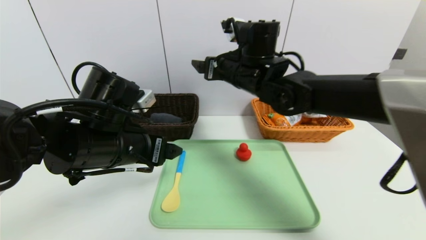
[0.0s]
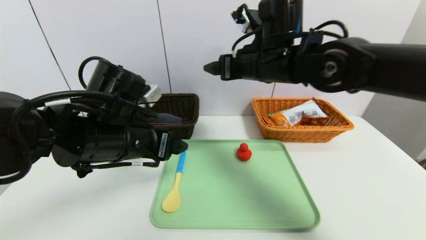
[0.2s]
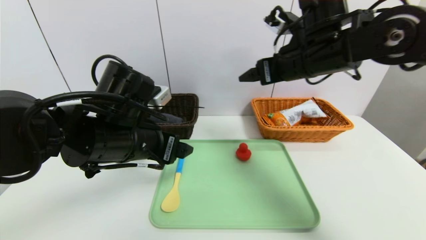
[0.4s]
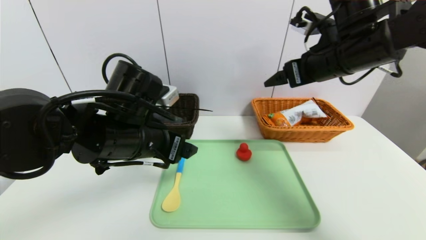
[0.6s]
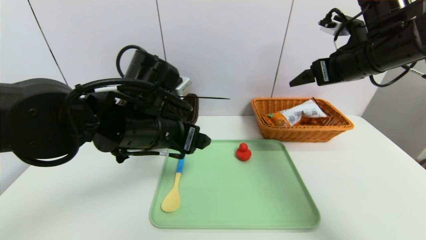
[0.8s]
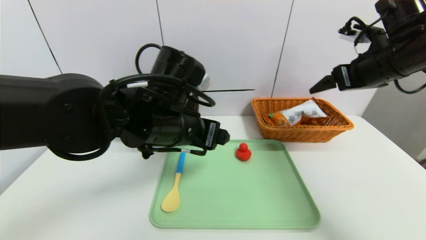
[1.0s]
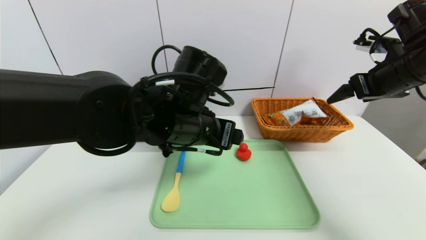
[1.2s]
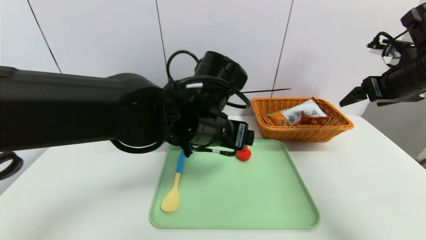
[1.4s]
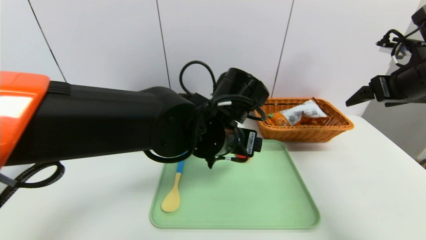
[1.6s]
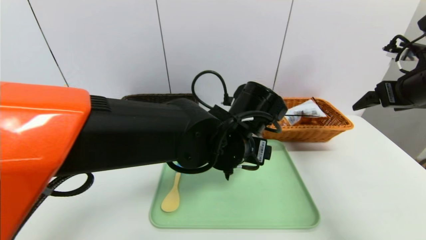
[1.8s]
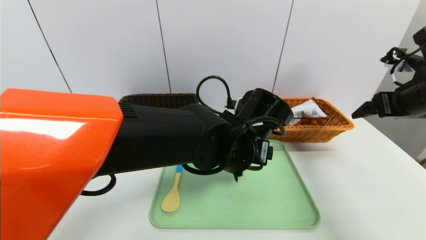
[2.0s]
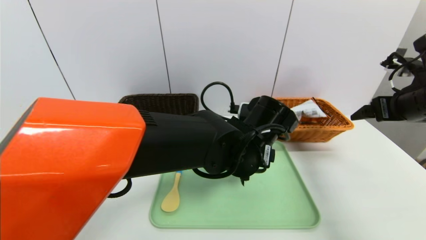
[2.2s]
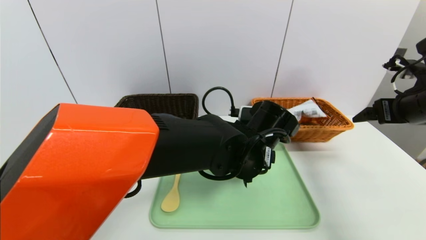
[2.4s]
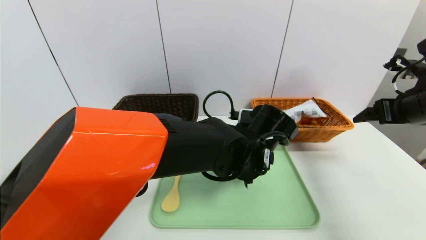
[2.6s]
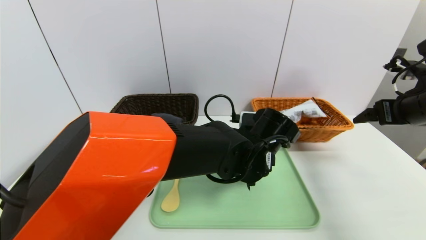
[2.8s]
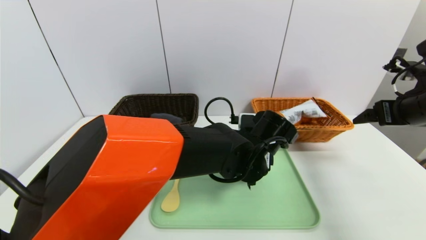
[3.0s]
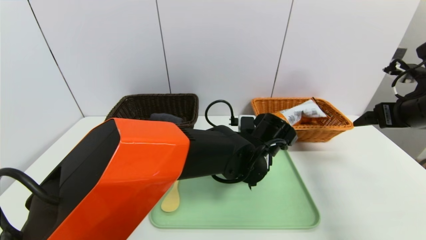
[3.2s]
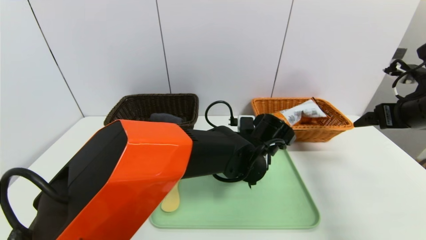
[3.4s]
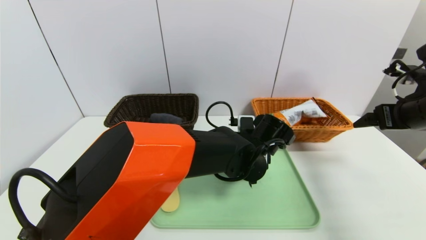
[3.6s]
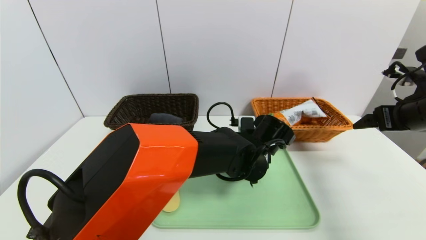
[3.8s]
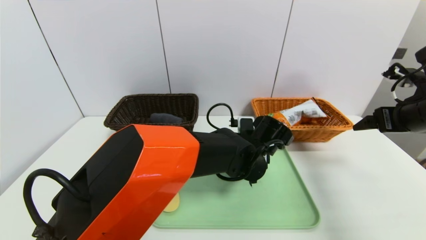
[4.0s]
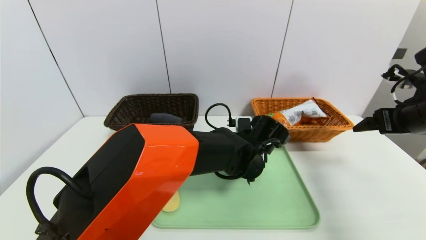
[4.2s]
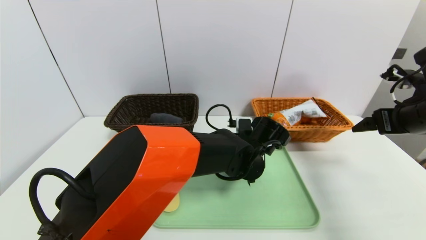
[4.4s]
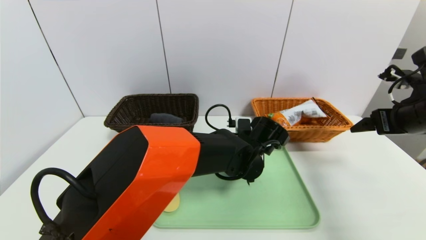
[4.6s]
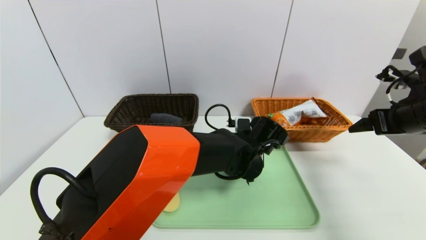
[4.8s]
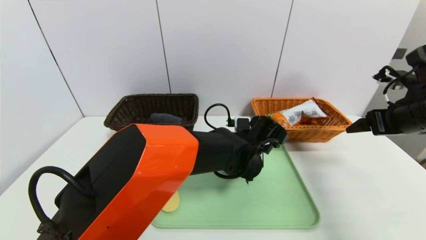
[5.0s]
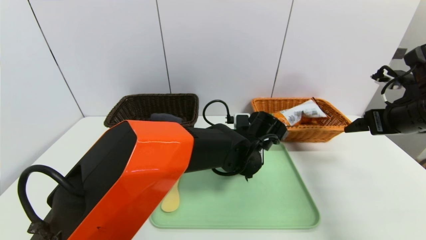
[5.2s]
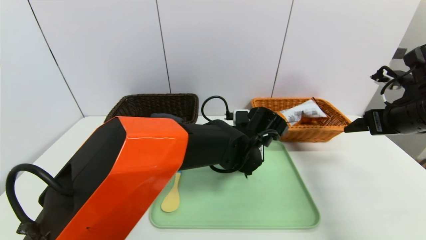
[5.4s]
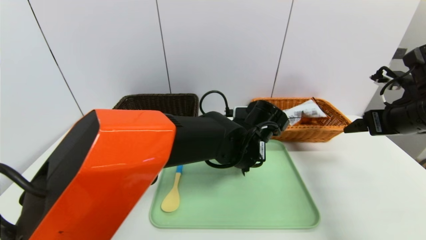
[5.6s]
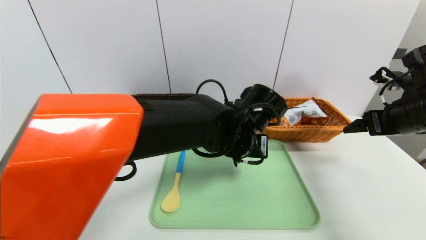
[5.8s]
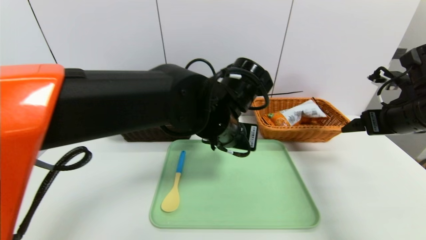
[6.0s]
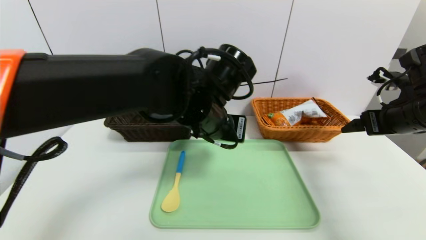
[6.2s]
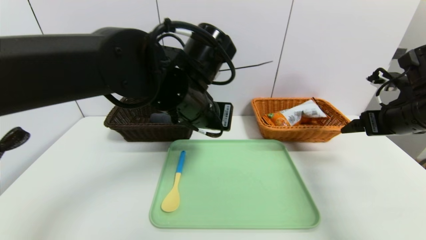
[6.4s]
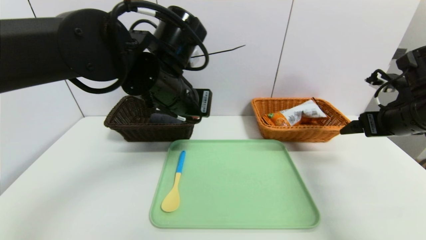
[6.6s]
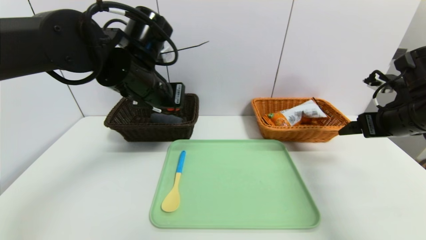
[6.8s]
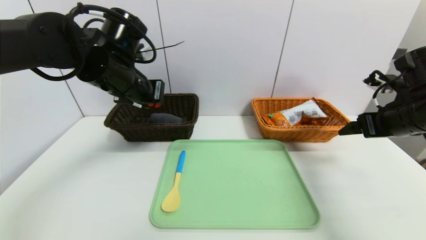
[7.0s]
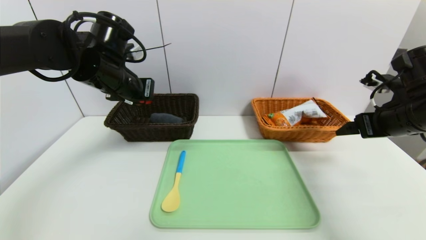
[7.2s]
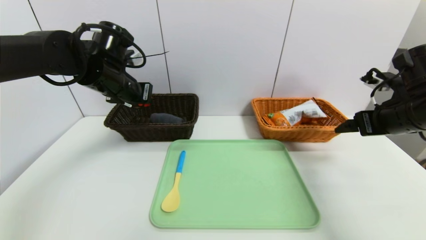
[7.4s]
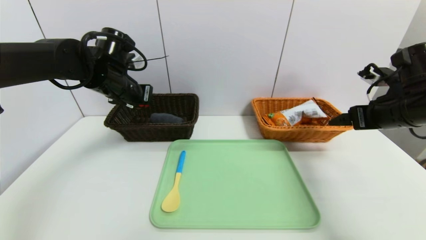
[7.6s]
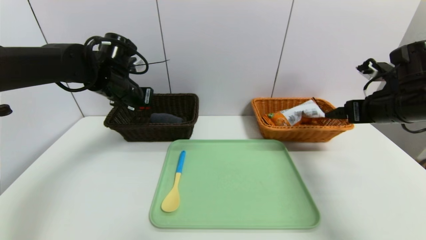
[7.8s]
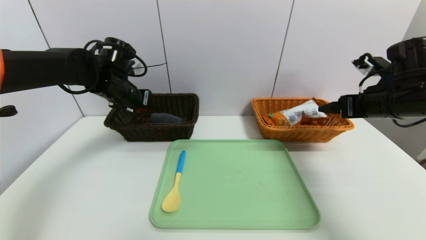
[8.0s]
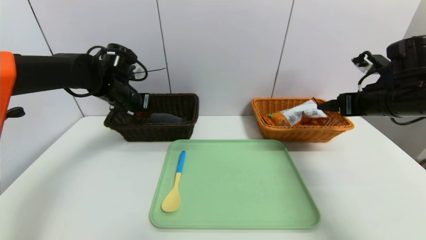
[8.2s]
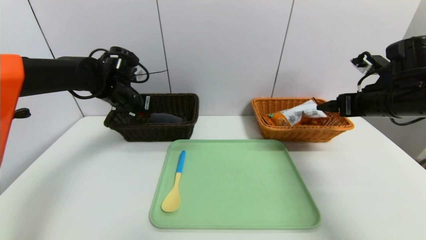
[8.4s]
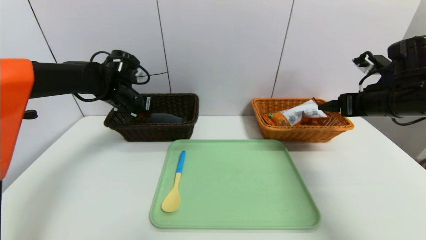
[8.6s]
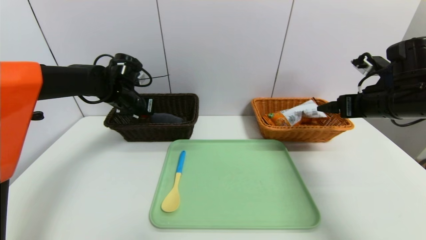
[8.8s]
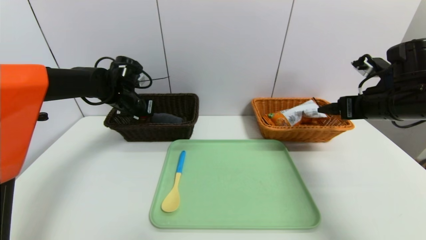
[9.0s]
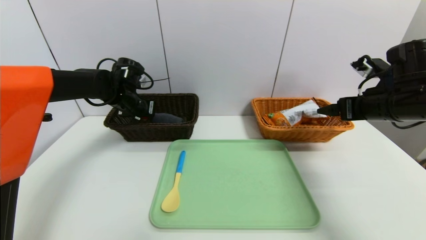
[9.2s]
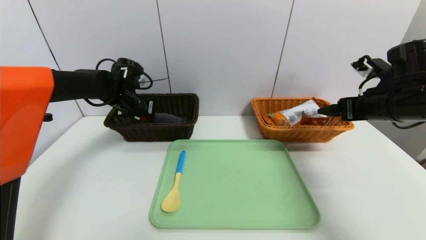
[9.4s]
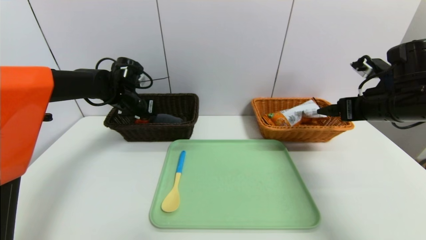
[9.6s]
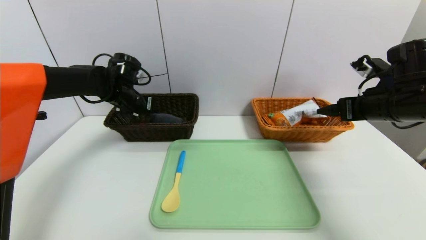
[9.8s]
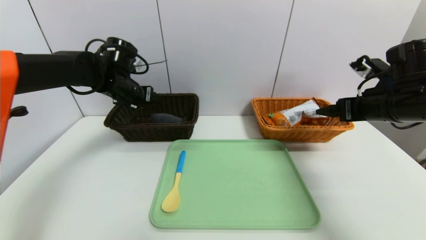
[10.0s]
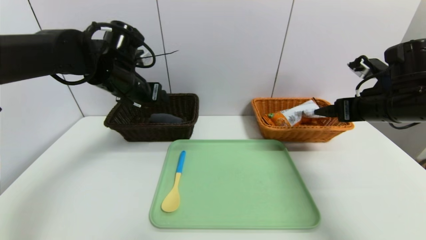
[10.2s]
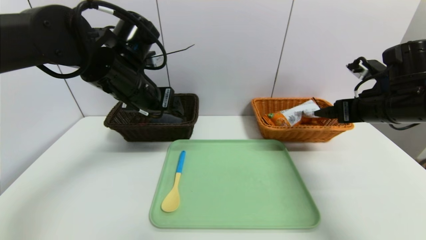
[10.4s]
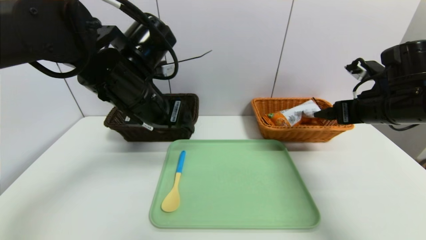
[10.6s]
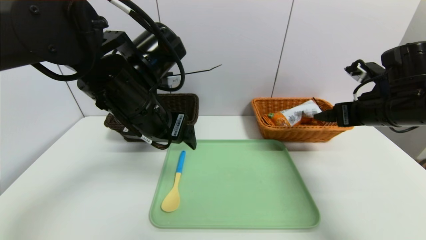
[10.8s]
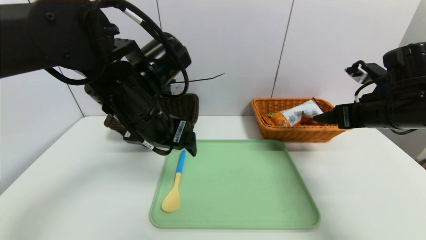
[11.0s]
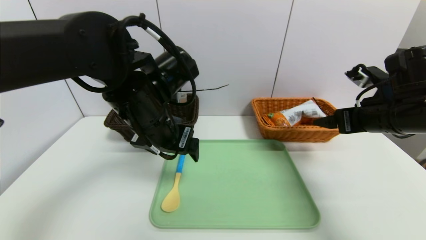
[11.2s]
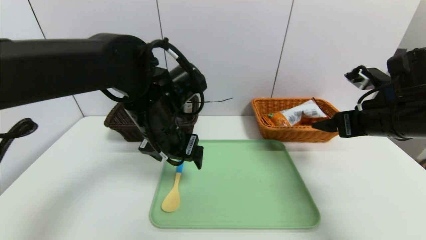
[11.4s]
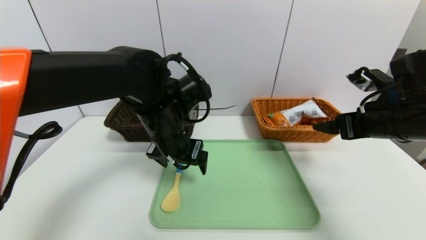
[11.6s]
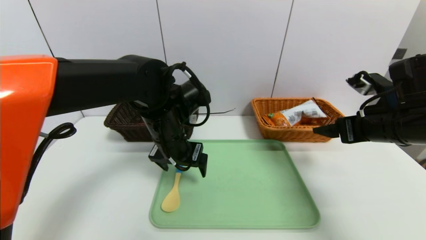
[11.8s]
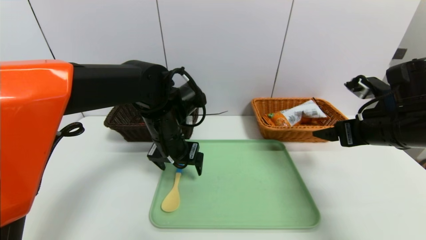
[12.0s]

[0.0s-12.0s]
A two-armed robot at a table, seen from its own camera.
Task of the whole recording: place the food in the right basket with the right gripper, and place the non food items in the left basket with the left gripper.
Step, 0.0s to 9.8s: Grasp the red duck and put it in the left basket.
0.0s to 1.6s: The right gripper is displaced to the right by approximately 30 cm, while the left gripper goes approximately 15 cm to the right.
1.6s to 3.0s: The left gripper is displaced downward and to the right by some 10 cm. Meanwhile the right gripper changes place by approximately 5 cm.
3.0s to 4.4s: The grippers move only a little.
4.4s to 6.0s: The left gripper travels upward and to the left by roughly 15 cm, and closes up.
6.0s to 7.6s: The left gripper goes some 25 cm to the left and forward.
7.6s to 9.0s: The left gripper shifts roughly 10 cm downward and forward.
9.0s to 10.4s: The left gripper heads backward, upward and to the right, covering some 20 cm, and opens up.
10.4s to 12.0s: The left gripper moves downward, some 10 cm.

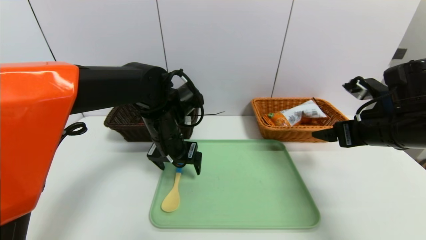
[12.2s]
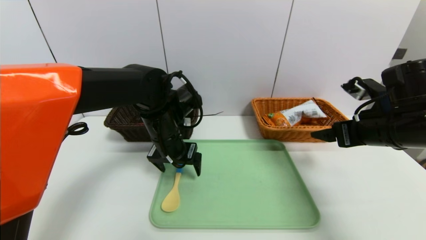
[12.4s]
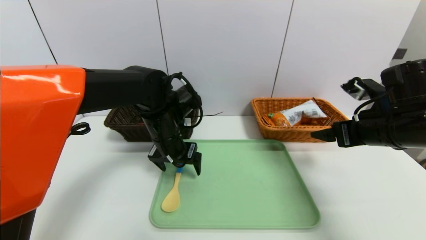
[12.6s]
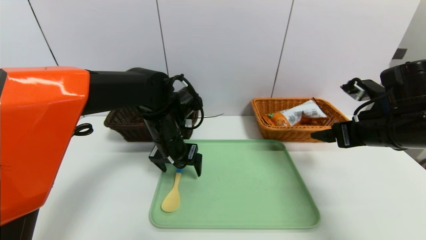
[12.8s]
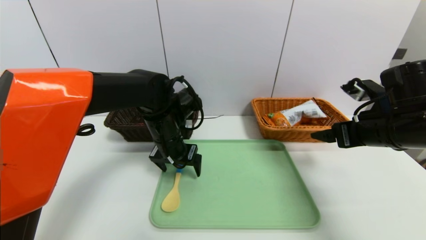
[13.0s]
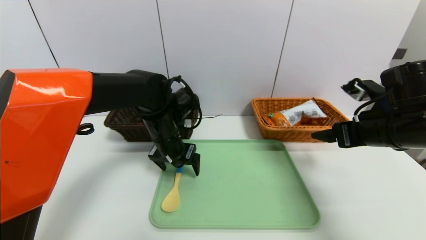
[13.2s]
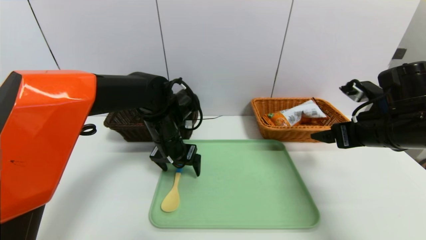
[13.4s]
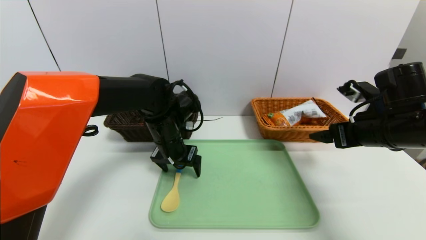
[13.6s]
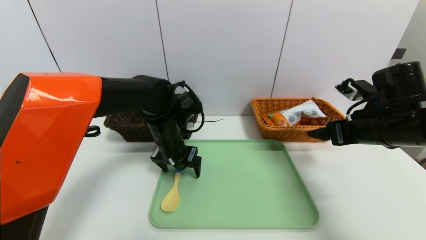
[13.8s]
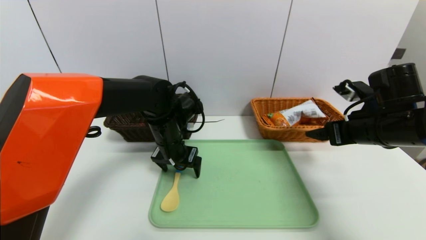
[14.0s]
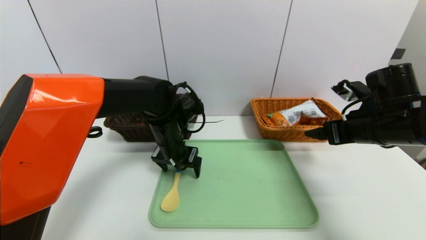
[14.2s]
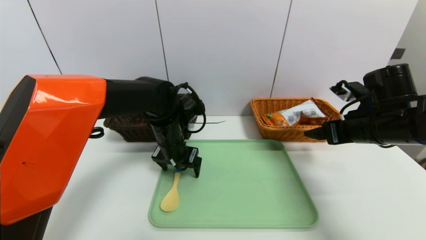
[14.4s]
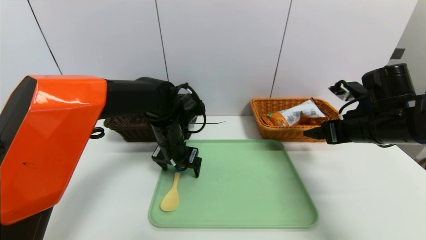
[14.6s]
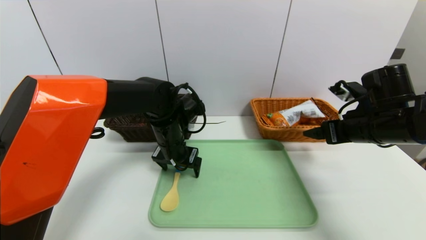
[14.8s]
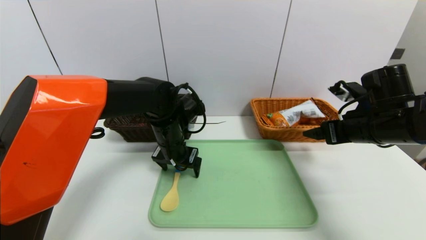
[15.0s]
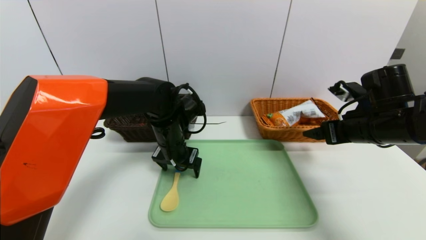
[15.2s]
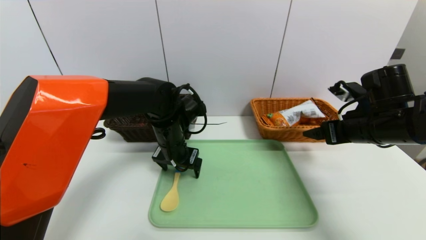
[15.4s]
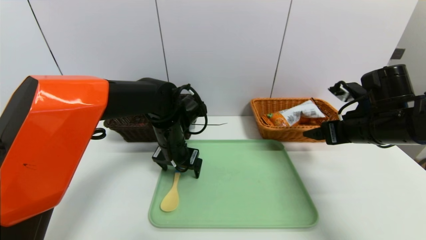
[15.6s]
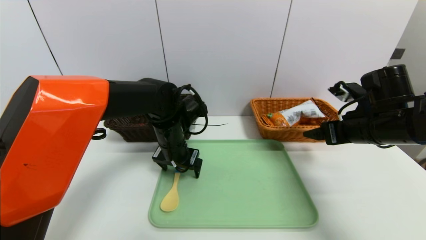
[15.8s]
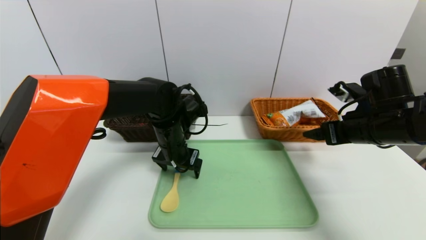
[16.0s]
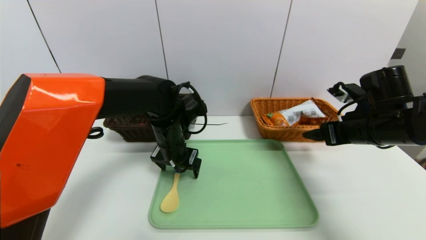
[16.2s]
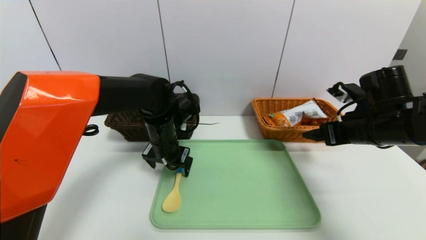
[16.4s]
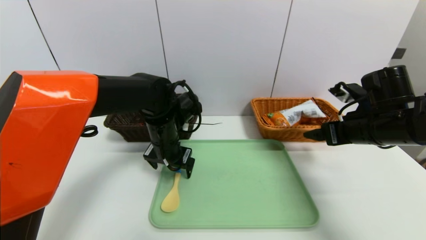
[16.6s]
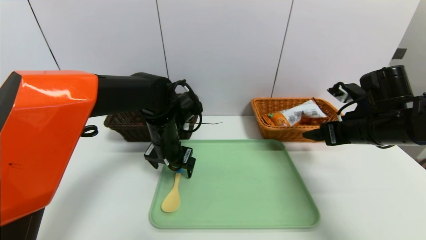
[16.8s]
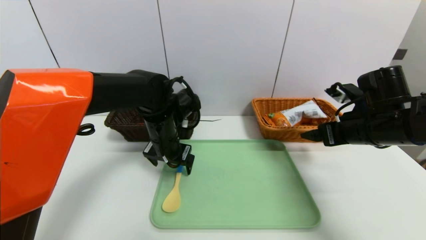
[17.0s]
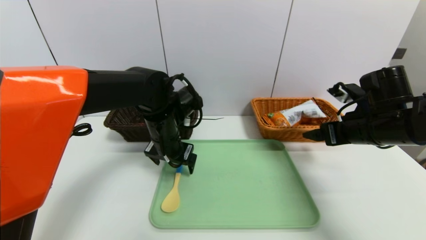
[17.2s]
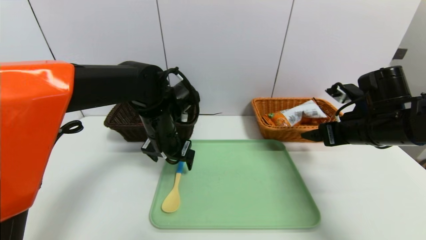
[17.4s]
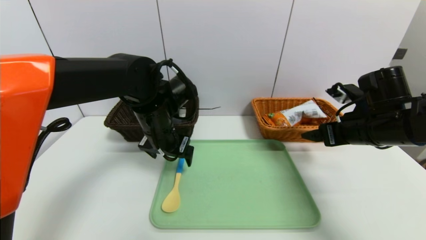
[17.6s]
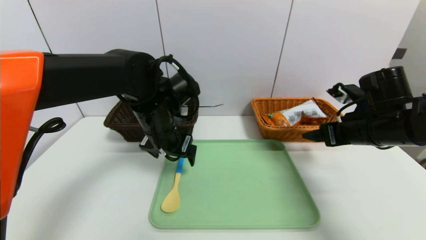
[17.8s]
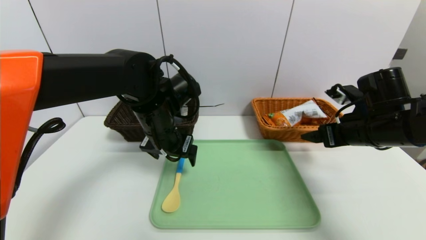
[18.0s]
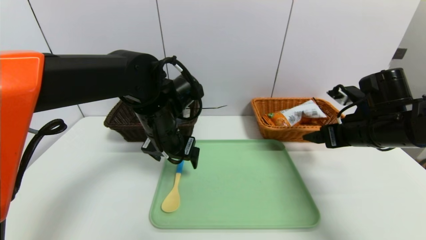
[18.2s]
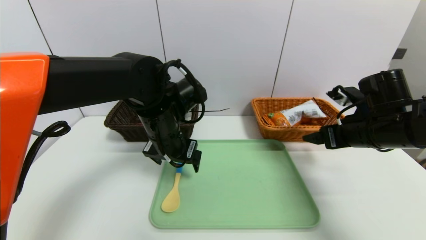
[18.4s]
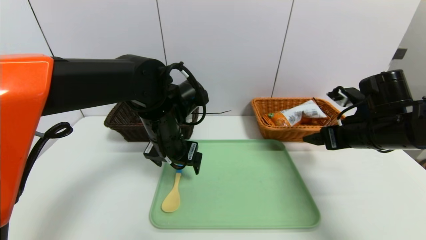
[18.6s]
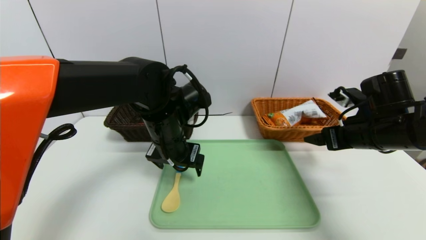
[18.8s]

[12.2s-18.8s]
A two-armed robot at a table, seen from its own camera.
Task of the whole recording: place the food in the right basket with the right gripper, and place the non food items in the left basket with the left gripper.
12.2s to 18.8s: There are only small adjustments of the grippers.
